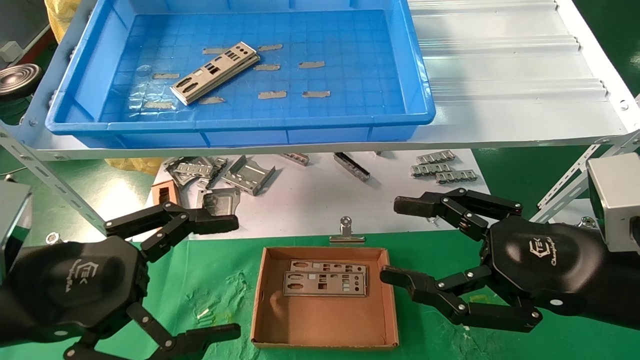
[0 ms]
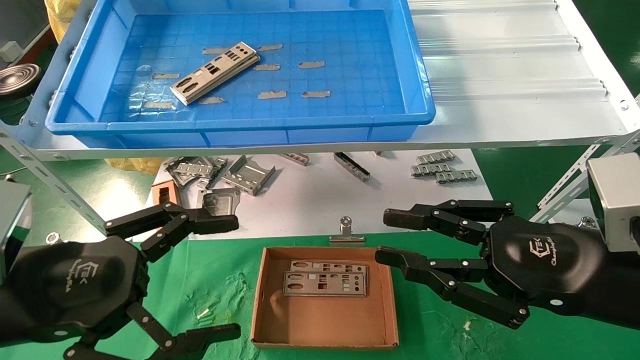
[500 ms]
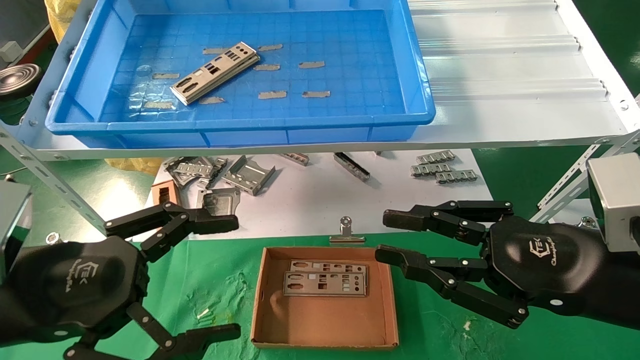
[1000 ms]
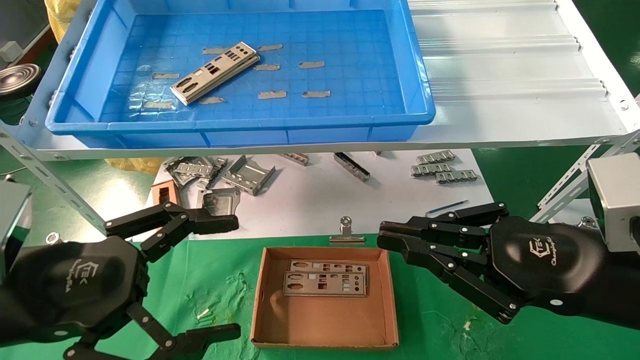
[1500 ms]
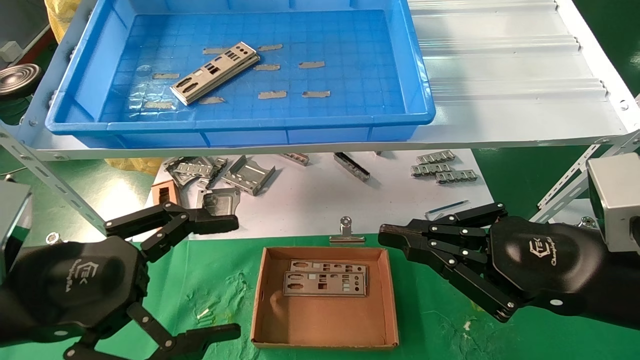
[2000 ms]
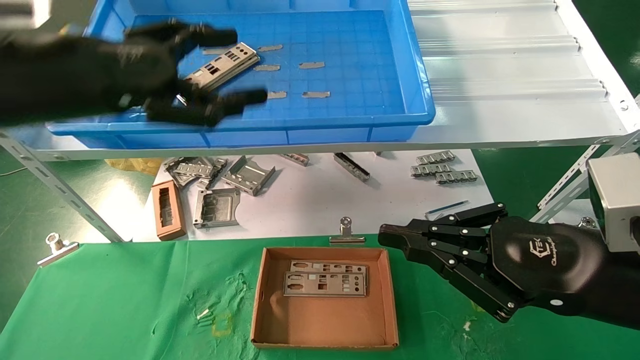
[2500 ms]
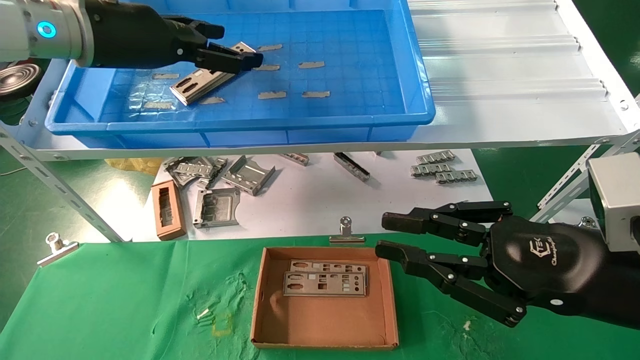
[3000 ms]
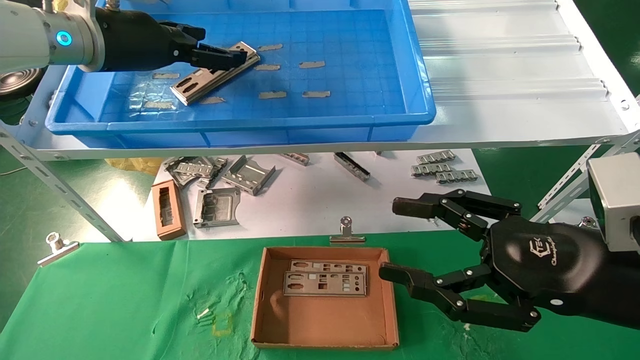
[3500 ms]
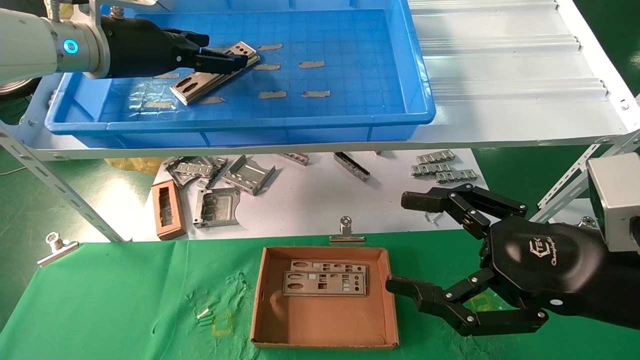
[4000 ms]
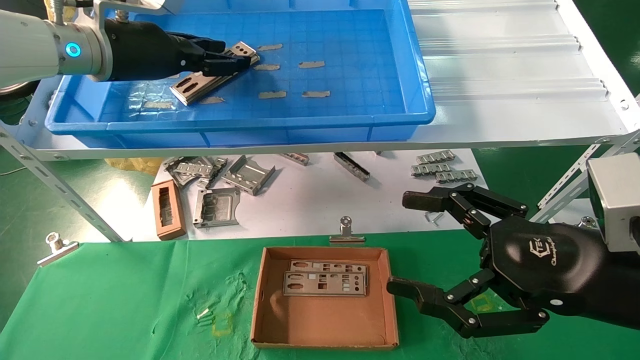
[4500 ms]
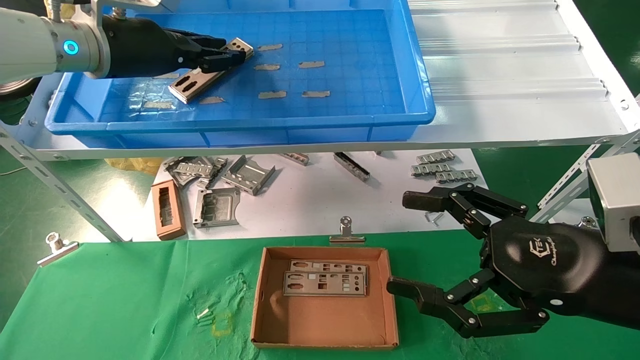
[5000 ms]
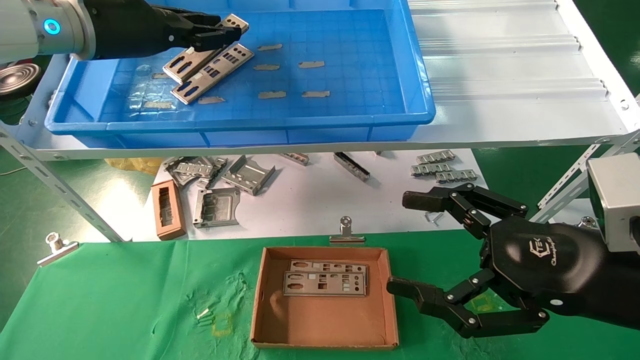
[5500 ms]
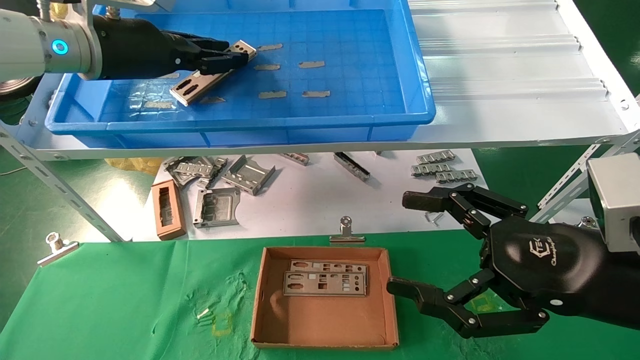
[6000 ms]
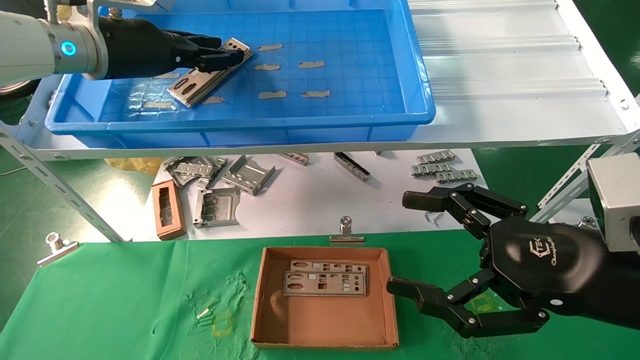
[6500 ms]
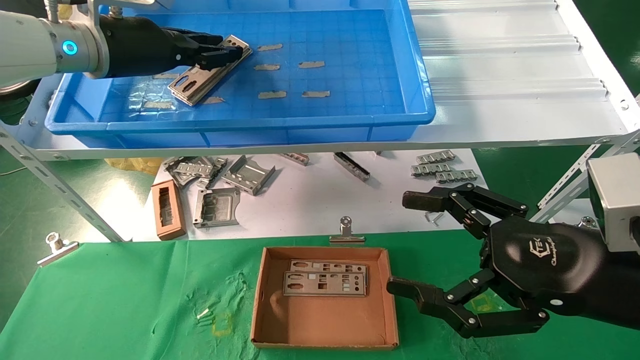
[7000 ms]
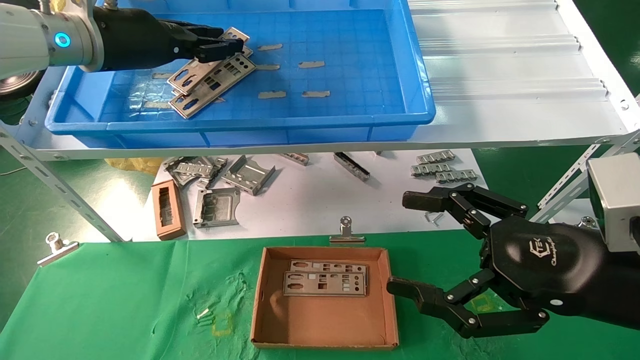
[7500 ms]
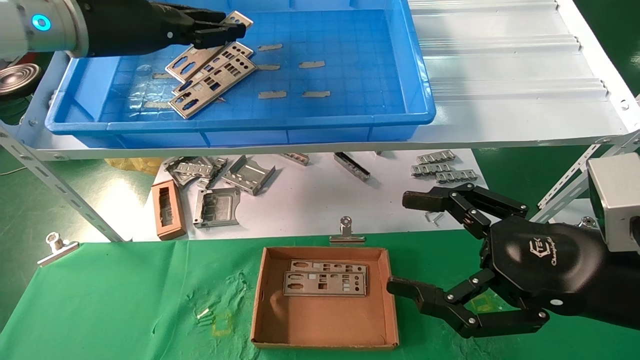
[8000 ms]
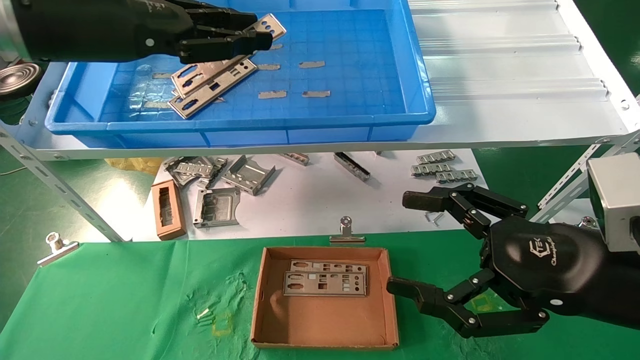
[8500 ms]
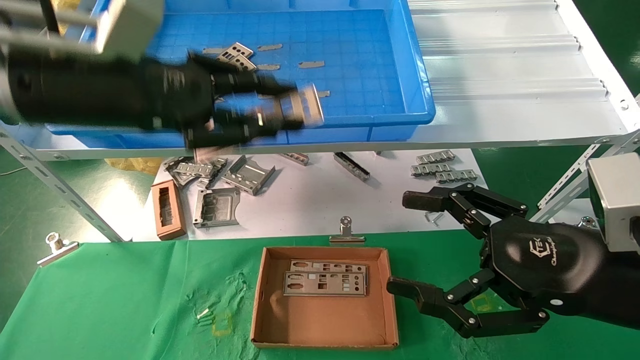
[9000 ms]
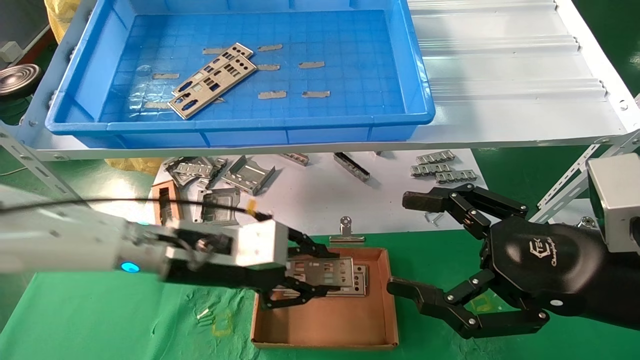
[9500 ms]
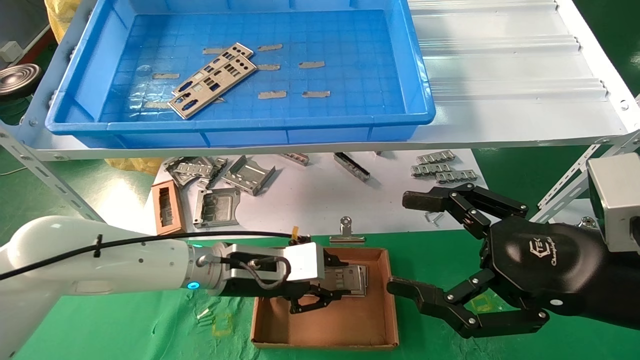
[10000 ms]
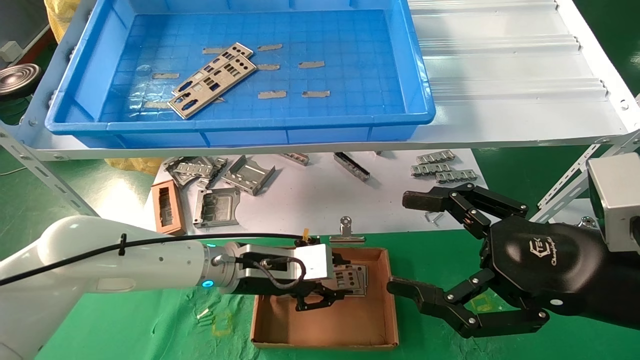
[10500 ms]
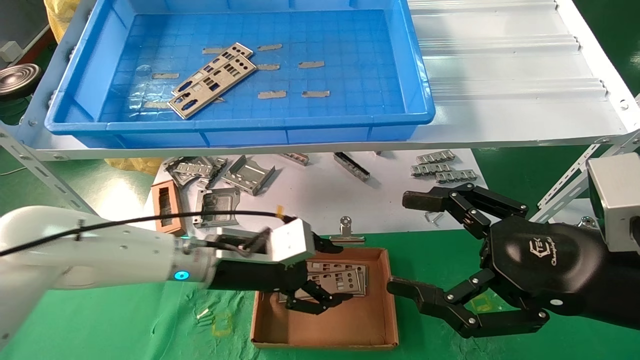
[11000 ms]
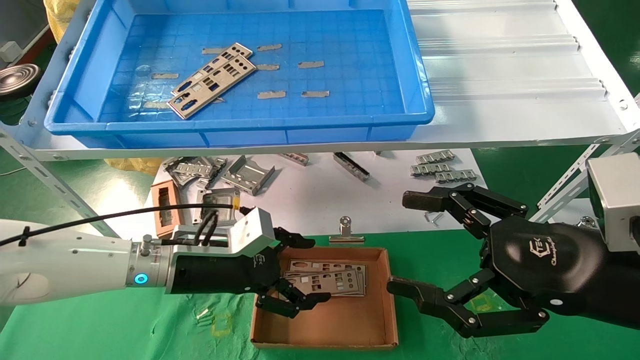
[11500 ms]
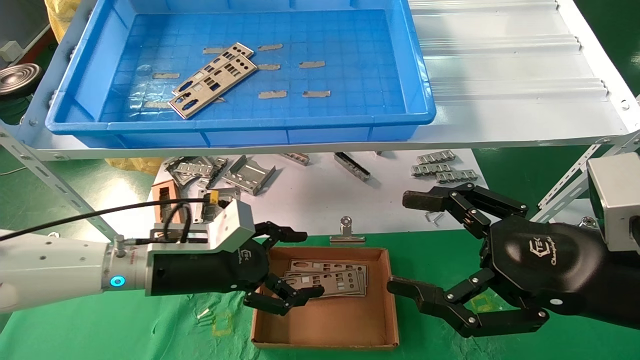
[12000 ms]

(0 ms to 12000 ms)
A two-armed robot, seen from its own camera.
Task of the whole recording: pick up the parts on the tray and put them in the cardboard box.
Step, 2500 ms - 7000 ms: Pick up the IO bracket from the container box.
Step, 7500 ms - 10000 ms: Place the IO bracket into the ingredient slot.
0 ms - 2000 ms: The right gripper closes.
2000 ms - 4000 ms: The right gripper opens; the left gripper is displaced forward and upward by roughly 30 cm.
4000 ms - 6000 ms: The left gripper closes its fingers.
6000 ms - 8000 ms: The grippers make only small movements.
8000 ms - 10000 ms: The left gripper heads downward and to the right, covering roughly 35 cm.
10000 ms - 12000 ms: The left gripper heads to the left, covering roughly 5 cm, and opens its fingers.

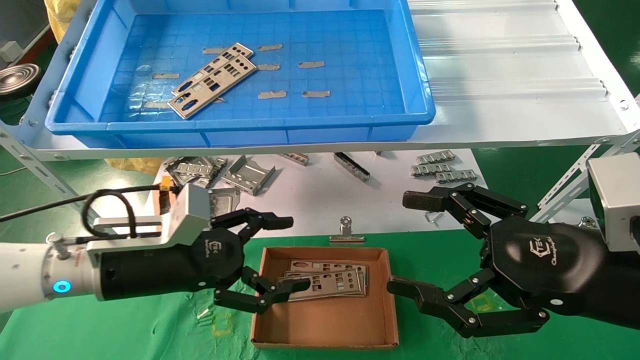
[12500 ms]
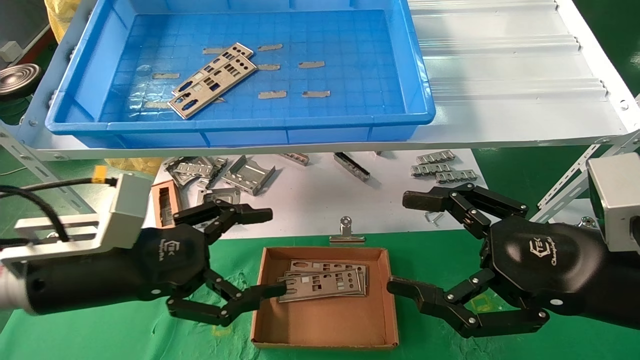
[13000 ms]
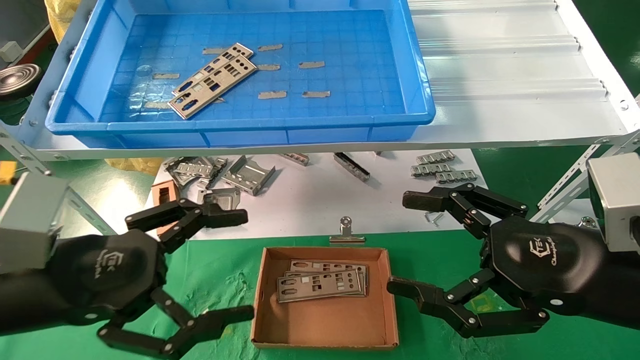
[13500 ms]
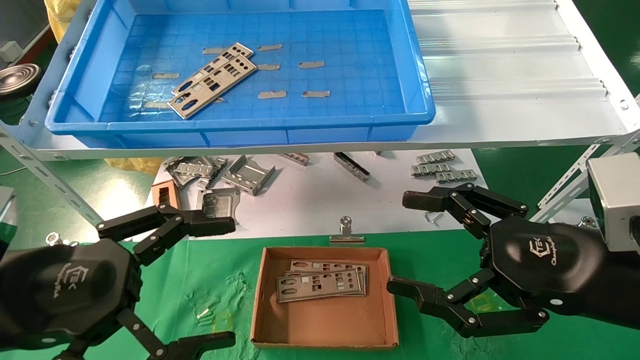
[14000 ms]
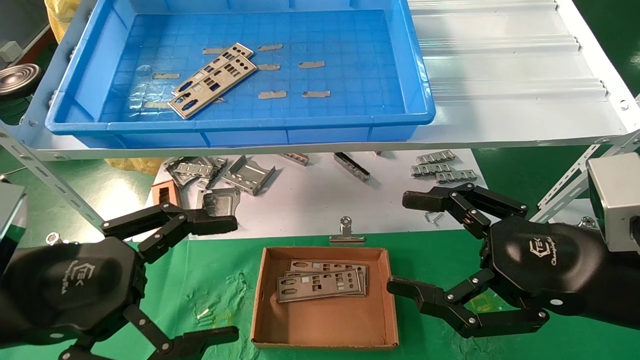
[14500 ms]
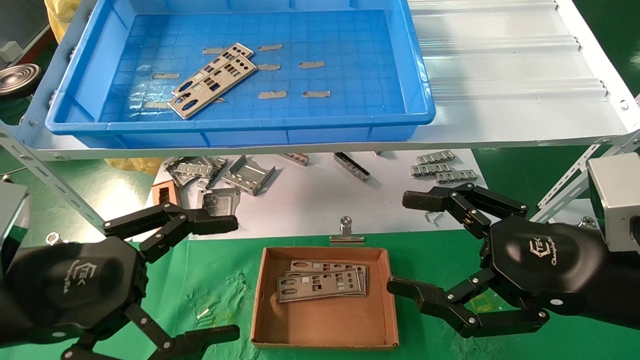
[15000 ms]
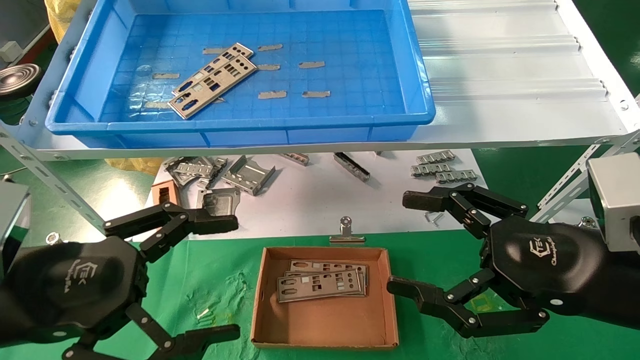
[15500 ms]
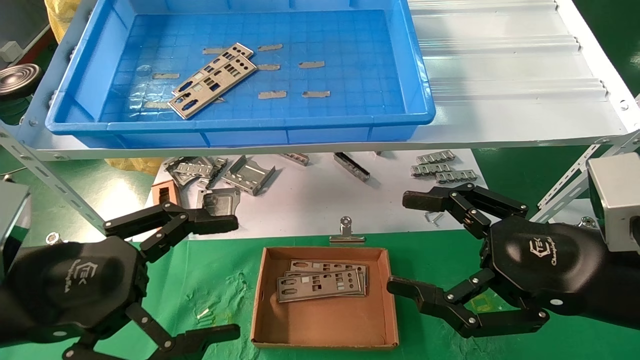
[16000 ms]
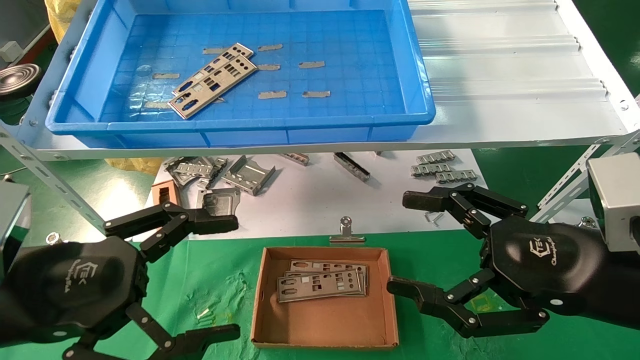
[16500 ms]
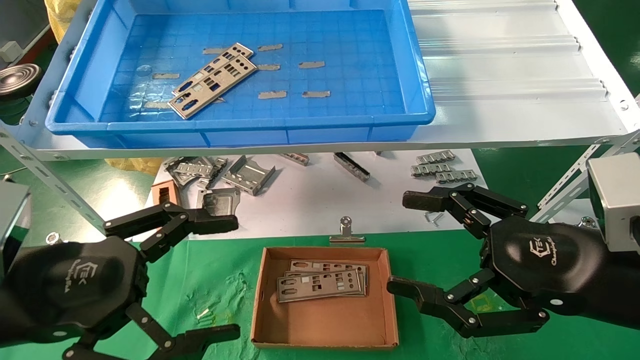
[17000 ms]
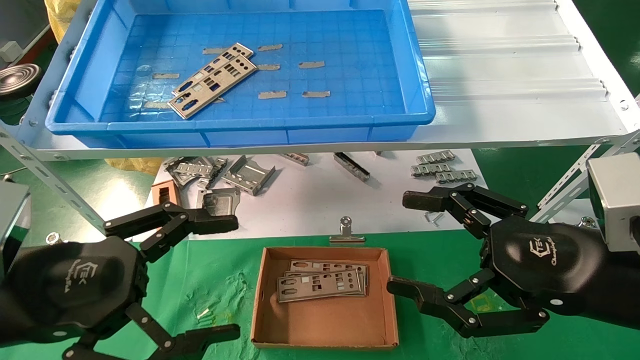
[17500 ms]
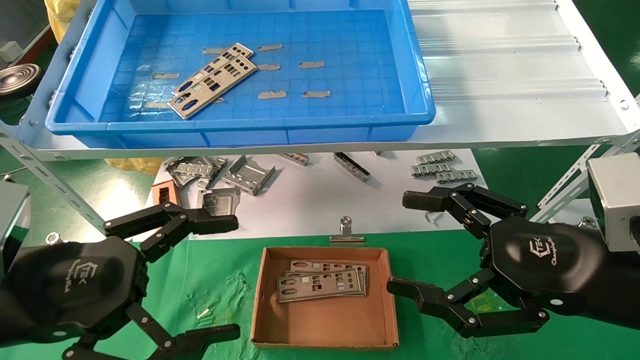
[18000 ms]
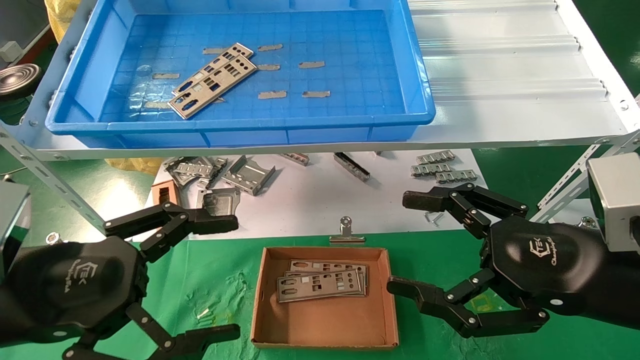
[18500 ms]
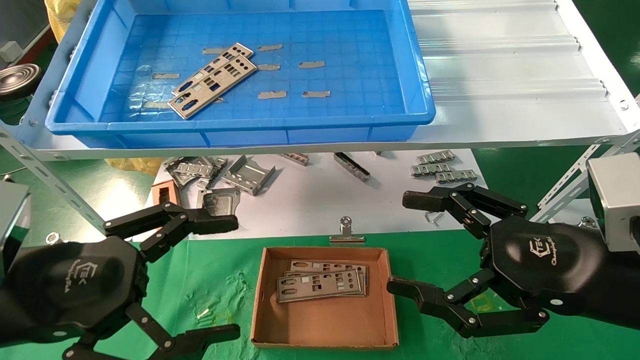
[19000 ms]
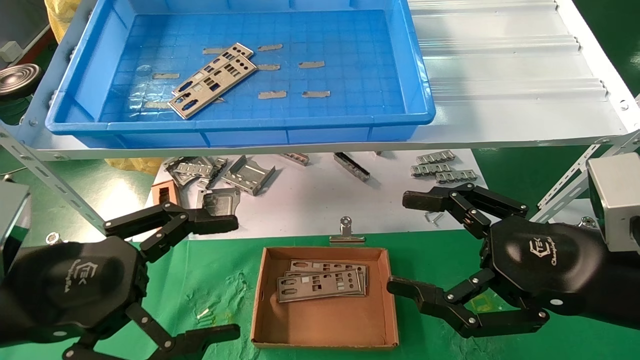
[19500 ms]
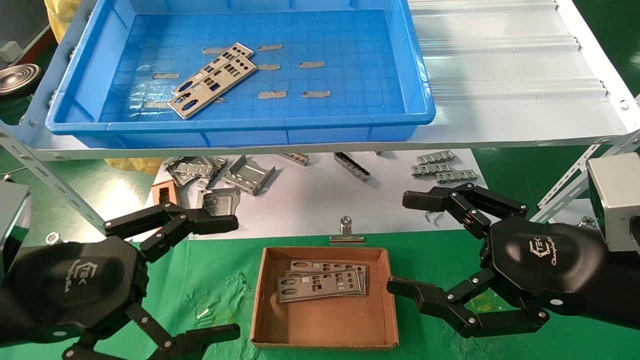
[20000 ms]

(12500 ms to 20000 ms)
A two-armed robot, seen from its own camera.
Task of the whole recording: pick up the parts on the tray and put them in the cardboard box.
12500 ms - 14500 ms: The left gripper travels backward and to the left by about 15 cm.
14500 ms - 20000 ms: The two grippers keep their place.
